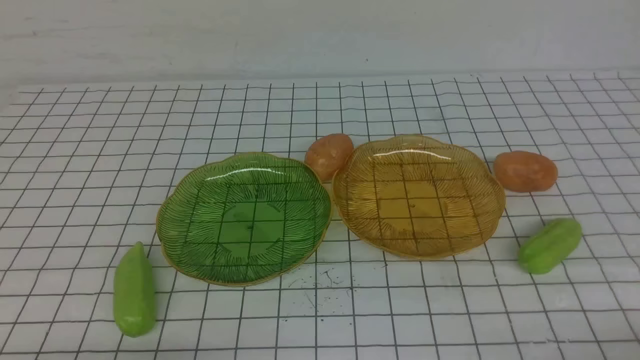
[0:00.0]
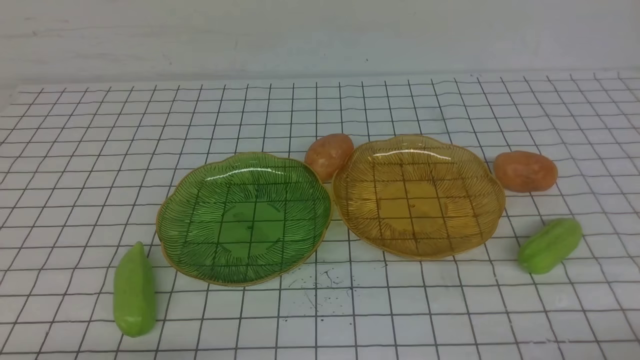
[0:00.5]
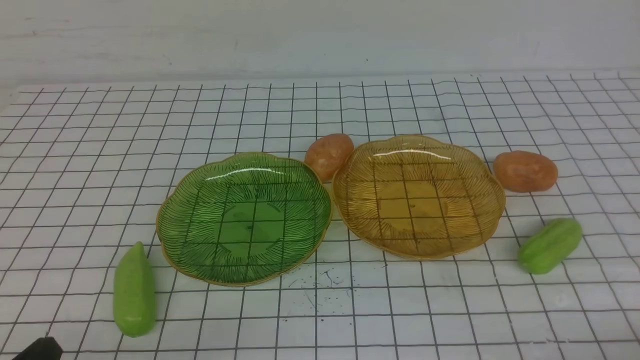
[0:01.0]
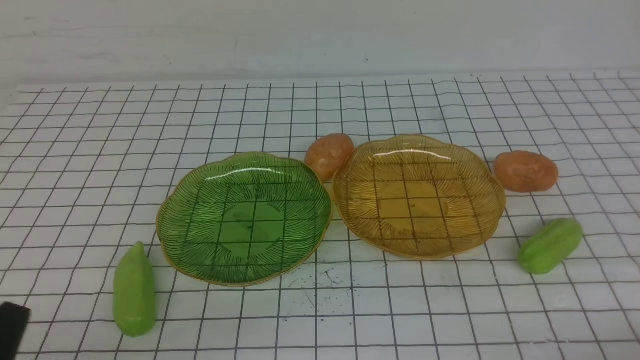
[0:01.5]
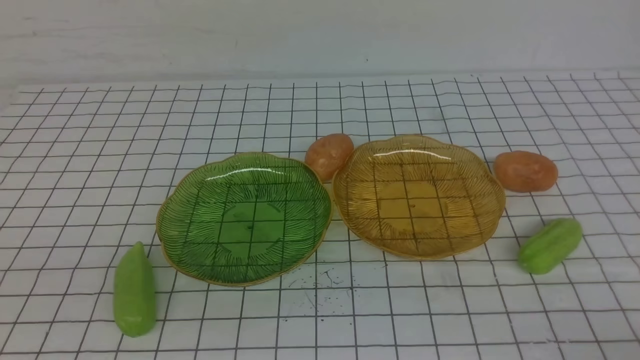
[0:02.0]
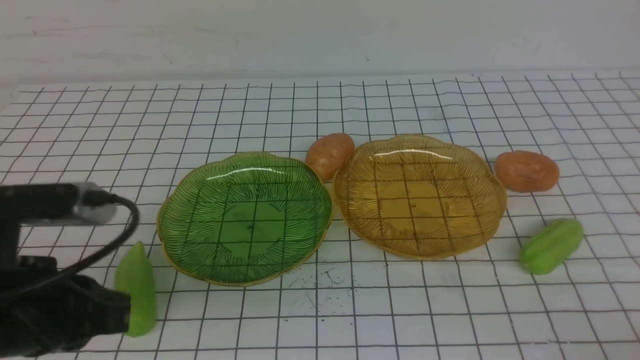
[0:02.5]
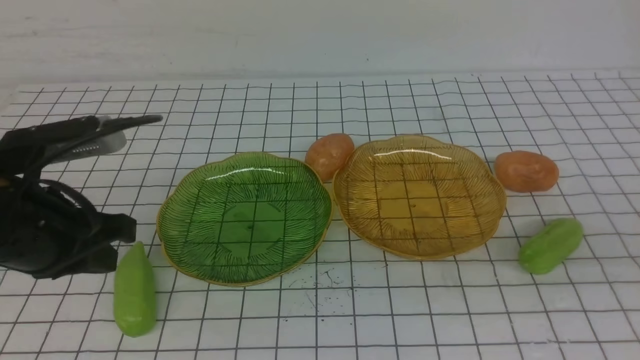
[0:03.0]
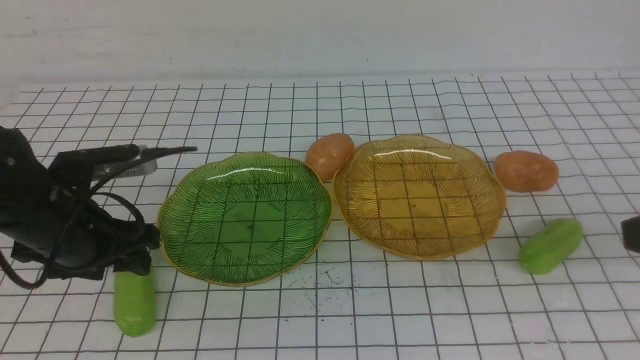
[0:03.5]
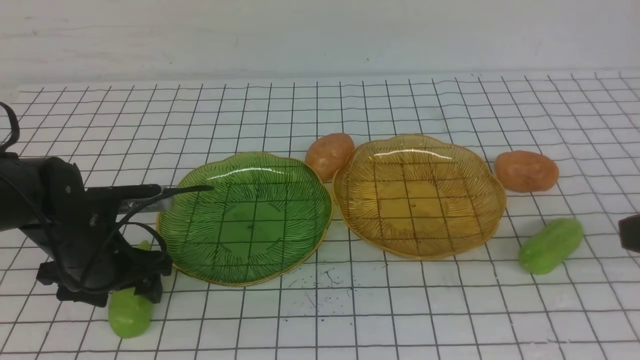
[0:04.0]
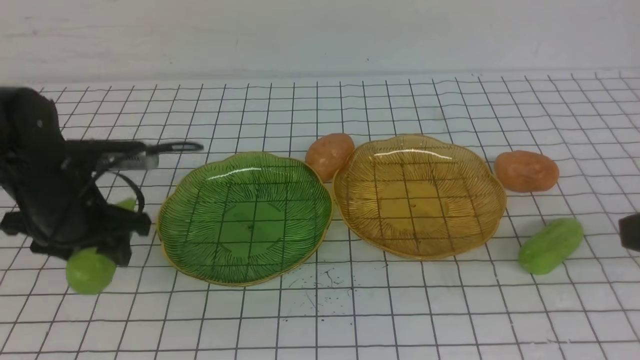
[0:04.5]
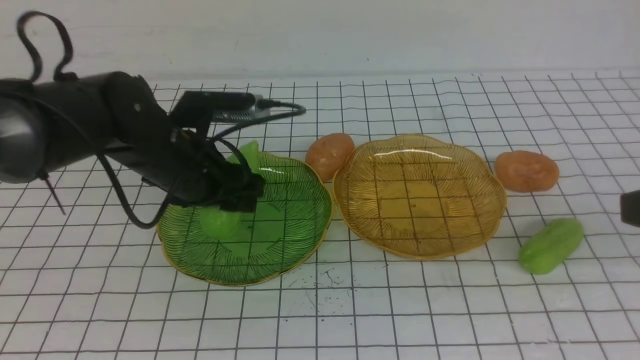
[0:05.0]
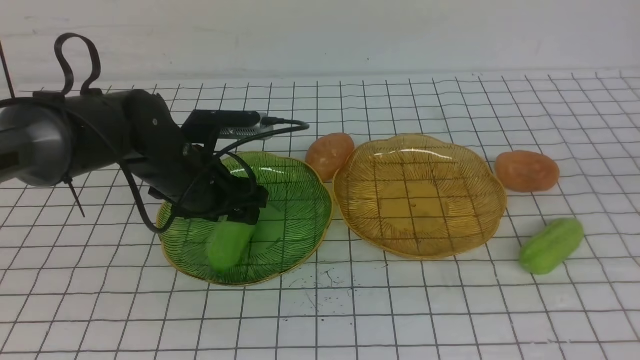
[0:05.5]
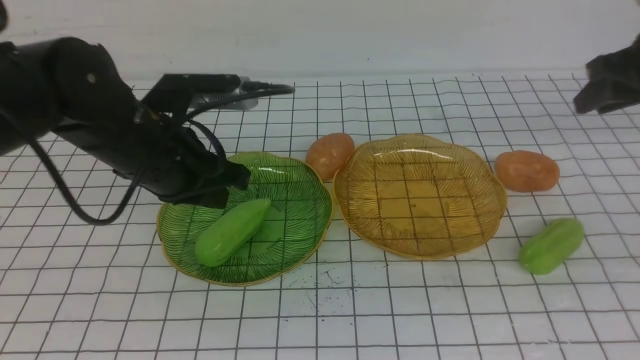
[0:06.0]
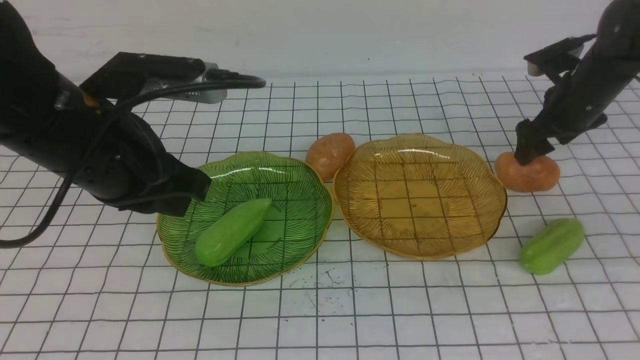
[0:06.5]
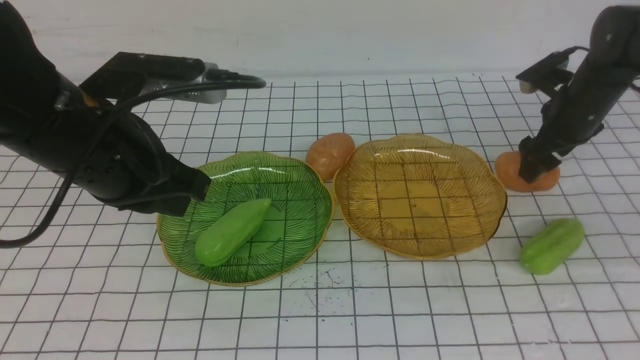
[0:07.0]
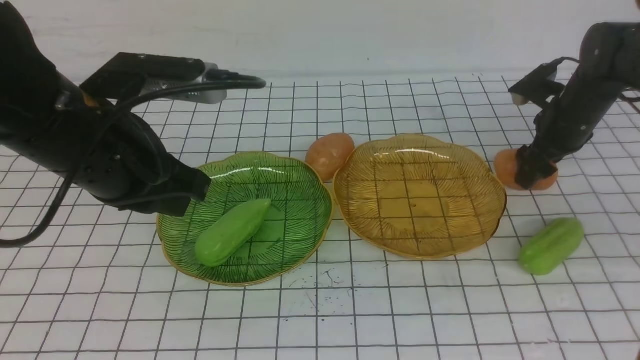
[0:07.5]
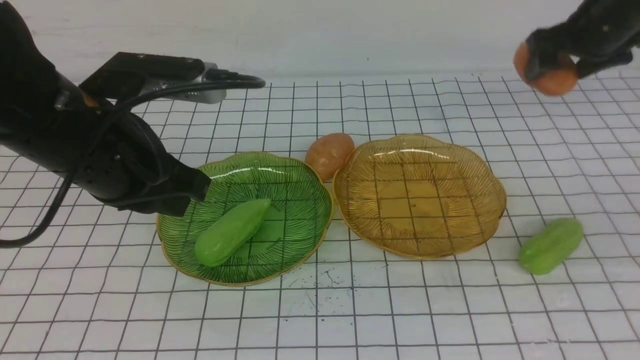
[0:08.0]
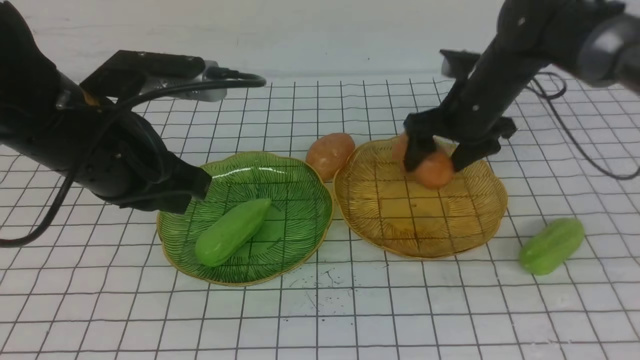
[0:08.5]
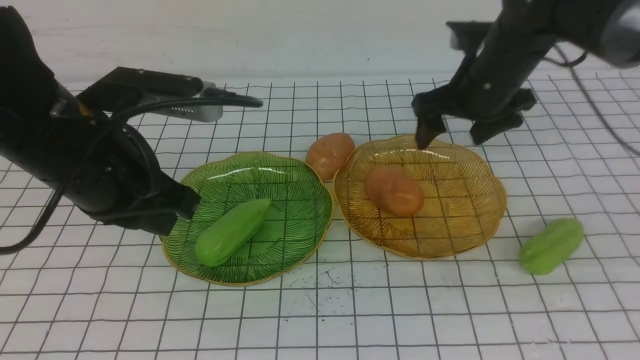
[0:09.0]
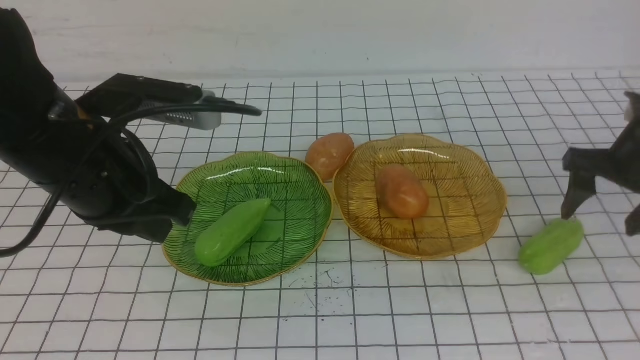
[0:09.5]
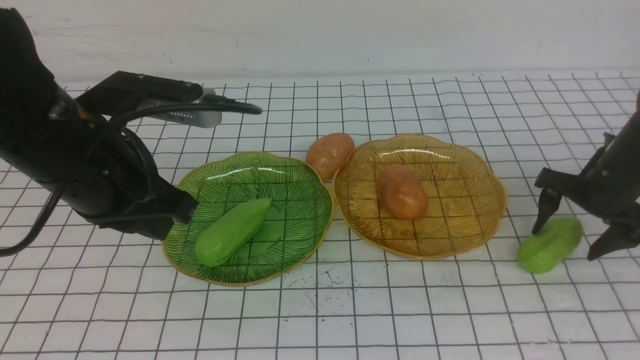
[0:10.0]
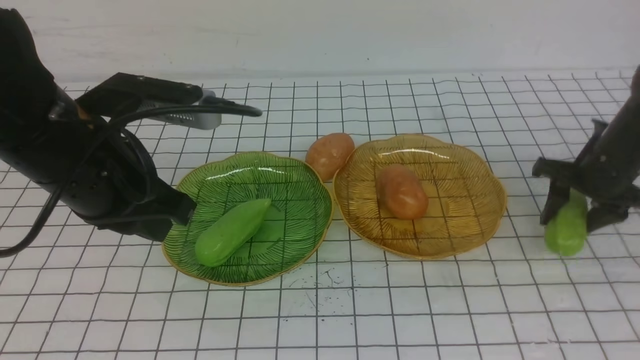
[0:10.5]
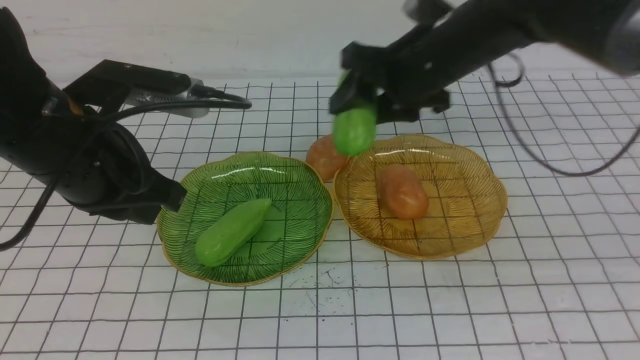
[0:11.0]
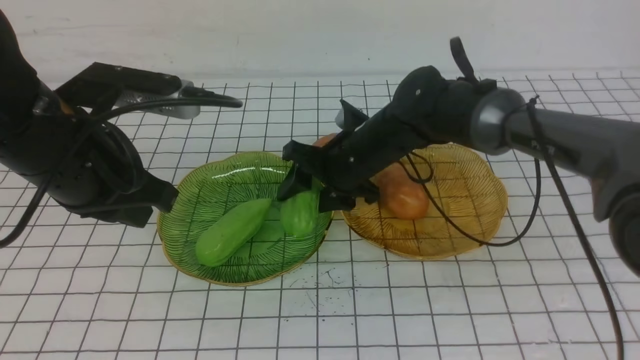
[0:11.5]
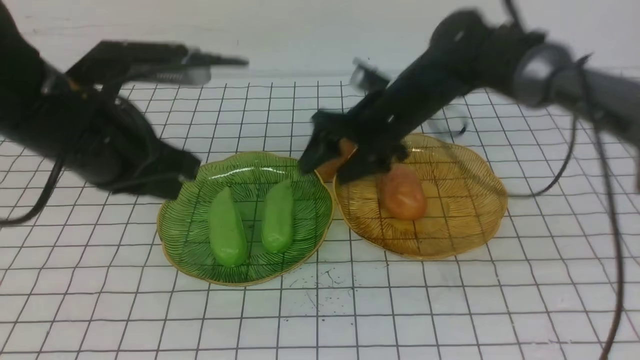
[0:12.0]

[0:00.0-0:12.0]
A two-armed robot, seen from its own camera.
Step, 0:00.0 to 0:05.5: use the left arm to grab a chayote and put it into the left plate.
Step, 0:06.0 to 0:08.5: Grab a potato with your right arm and put it on the right plate.
Step, 0:09.0 to 0:11.5: Grab the chayote with your right arm and put it on the left plate.
0:02.0 to 0:04.0: The right gripper shifts approximately 20 cm upward and forward, while the left gripper is displaced forward and downward by approximately 30 cm, and opens.
0:04.0 to 0:06.0: The left gripper goes up and down, some 10 cm each way, reversing 2 times, and closes its fingers, while the right gripper travels forward by roughly 25 cm.
0:06.0 to 0:08.0: The right gripper moves forward, some 10 cm, travels downward and back again, approximately 15 cm each way, and opens. The left gripper heads upward and backward, covering roughly 10 cm.
0:08.0 to 0:10.0: The right gripper is displaced backward and downward by some 15 cm, and moves some 15 cm to the left and comes back.
0:10.0 to 0:12.0: The right gripper moves to the left, about 25 cm.

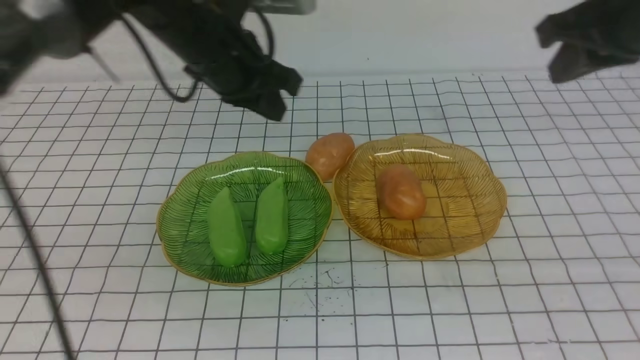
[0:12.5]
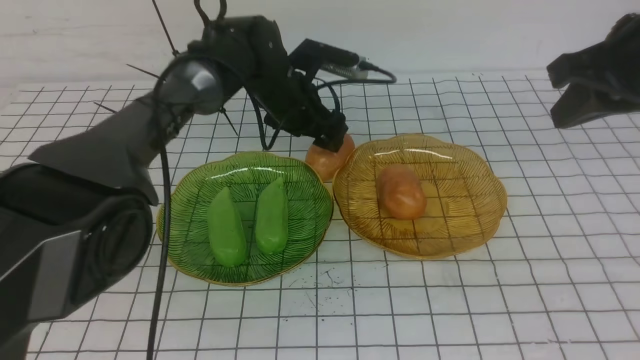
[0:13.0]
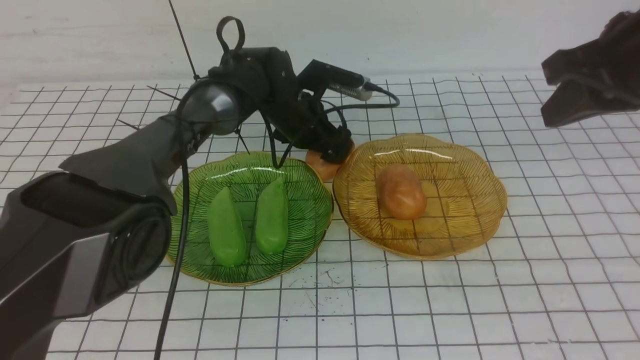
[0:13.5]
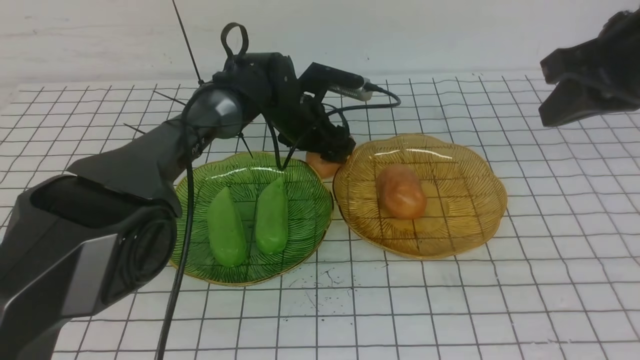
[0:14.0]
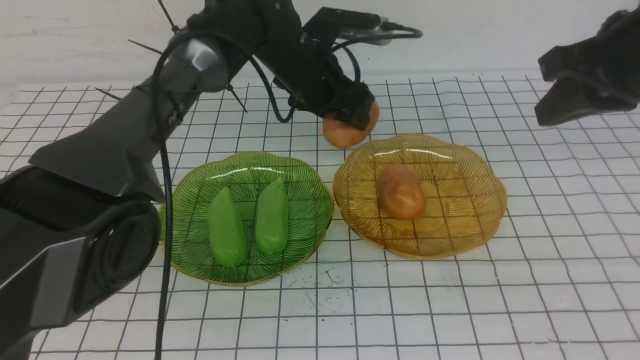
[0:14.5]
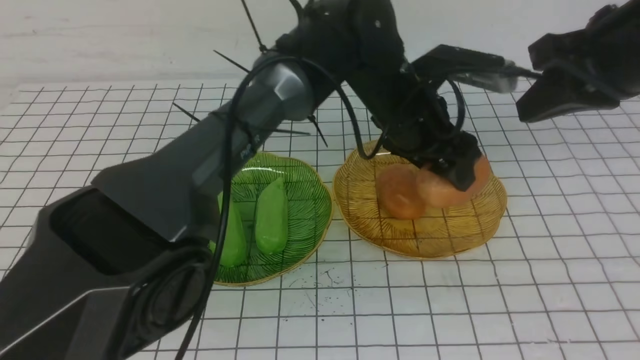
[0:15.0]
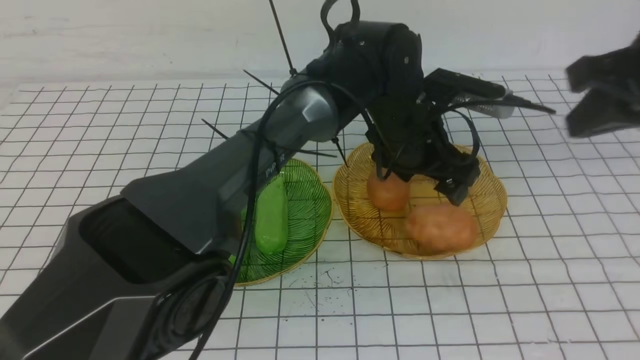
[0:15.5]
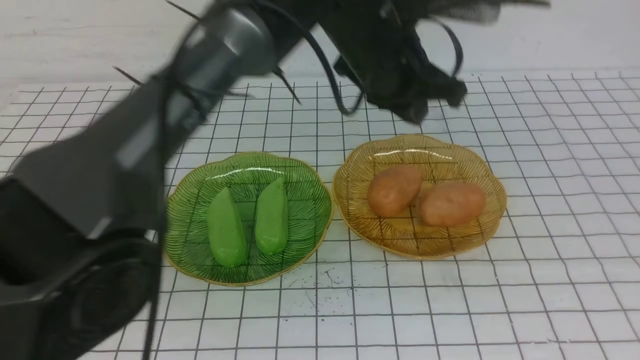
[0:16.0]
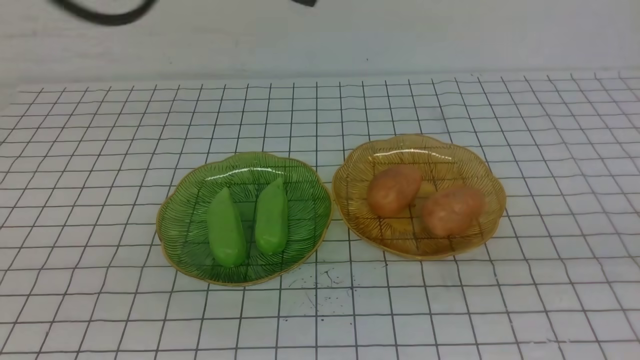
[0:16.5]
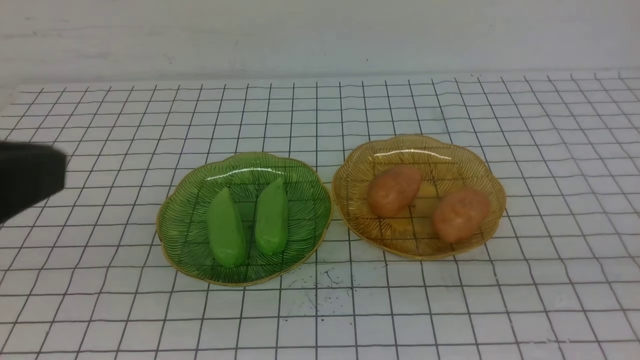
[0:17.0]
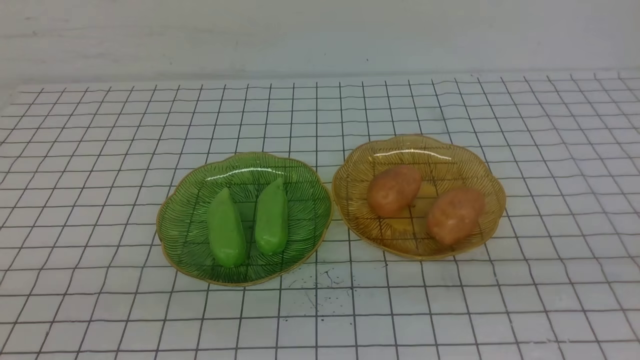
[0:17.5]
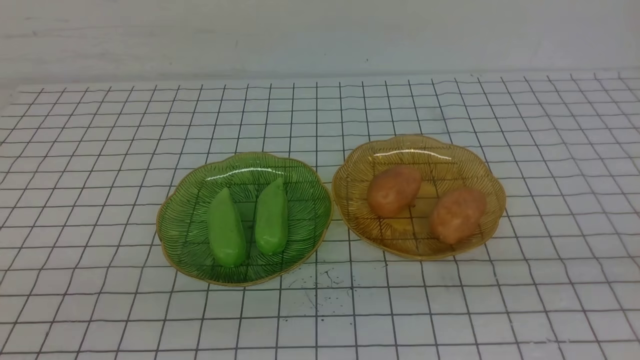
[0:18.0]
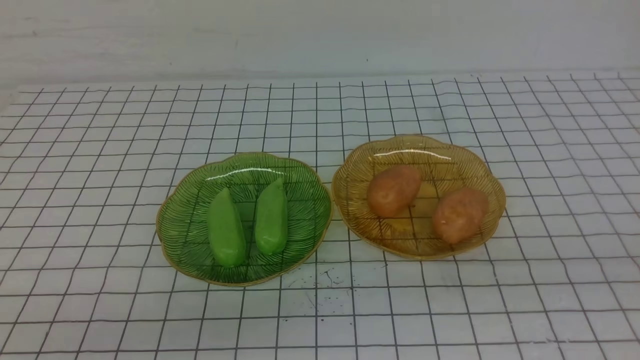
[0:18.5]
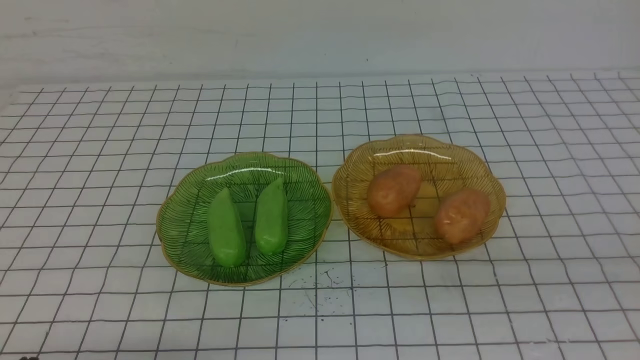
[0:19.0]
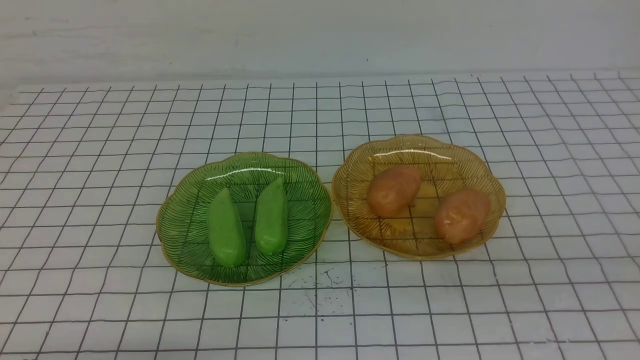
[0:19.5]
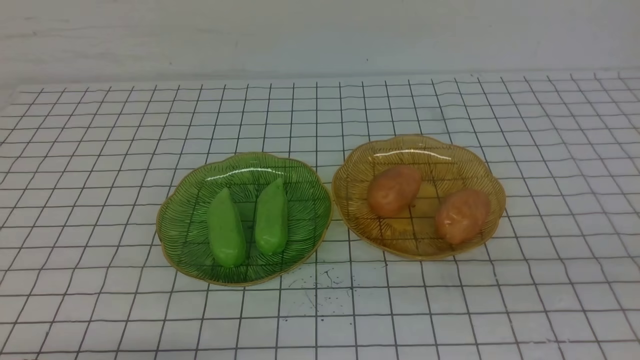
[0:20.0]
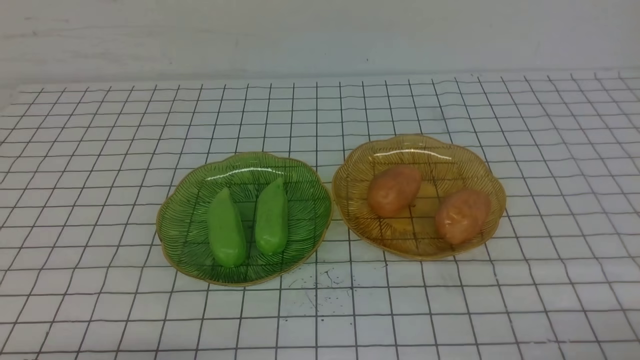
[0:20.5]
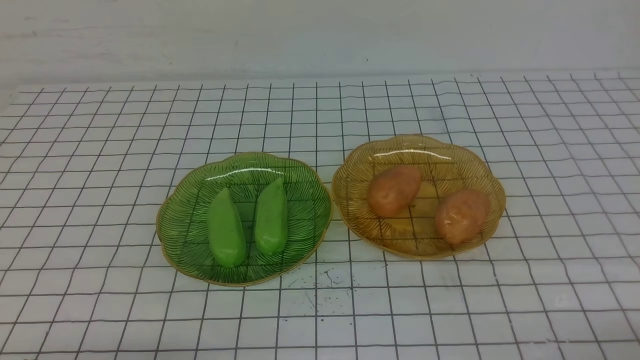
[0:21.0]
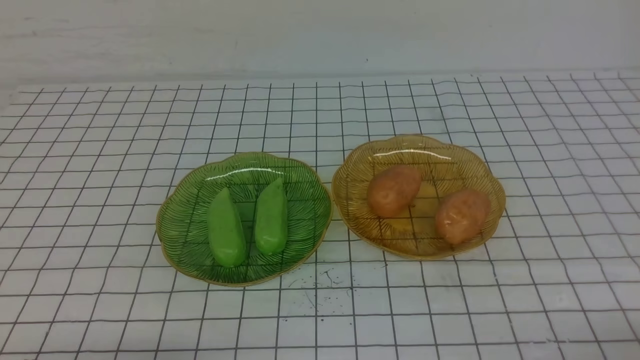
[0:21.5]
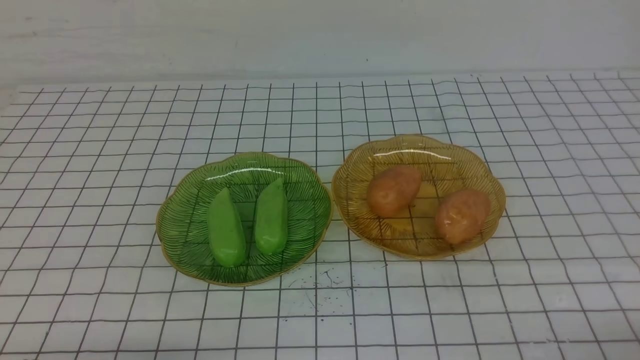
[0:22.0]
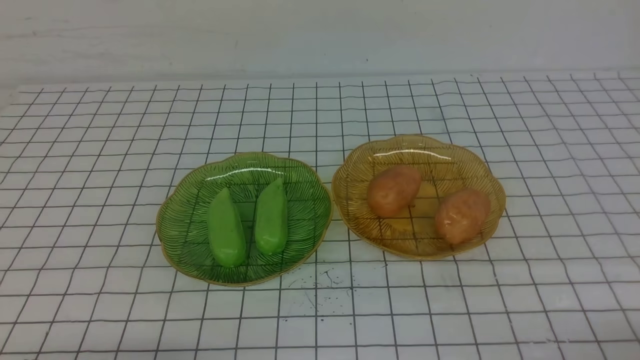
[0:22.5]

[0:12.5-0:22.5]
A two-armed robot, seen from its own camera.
Step, 0:12.5 to 0:15.5: Grab a potato with your left arm and put it on the right plate.
0:12.5 to 0:14.5: The left gripper moves to the right, forward and downward, approximately 15 cm, and opens up. The right gripper moves backward, approximately 5 cm.
0:14.5 to 0:16.5: The left gripper heads upward and backward, covering some 30 cm, and closes up, while the right gripper shifts approximately 25 cm backward.
0:16.5 to 0:18.5: The left gripper travels backward, to the left and downward by roughly 35 cm.
